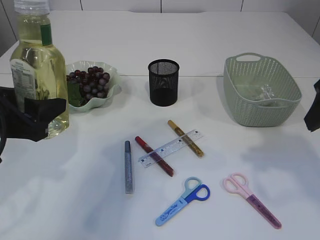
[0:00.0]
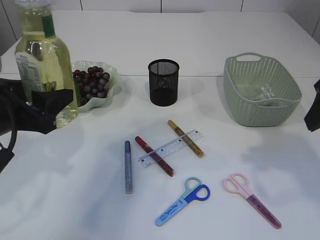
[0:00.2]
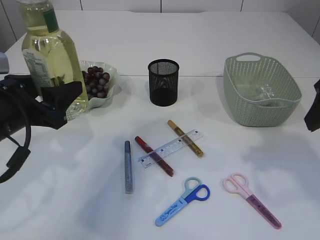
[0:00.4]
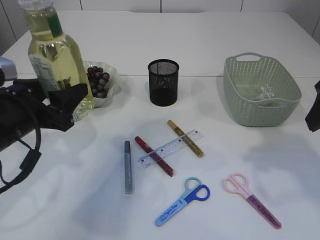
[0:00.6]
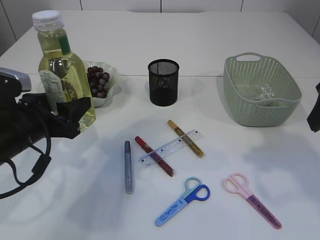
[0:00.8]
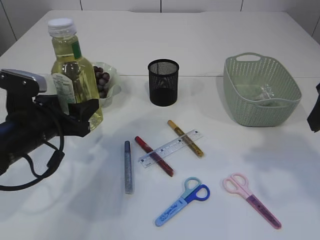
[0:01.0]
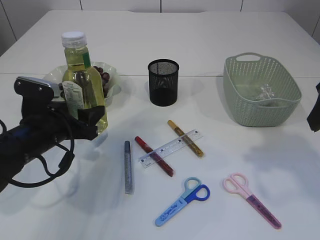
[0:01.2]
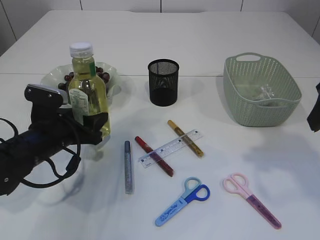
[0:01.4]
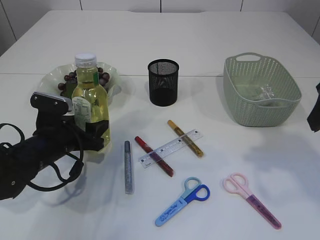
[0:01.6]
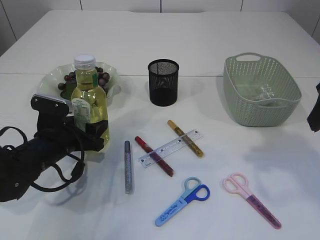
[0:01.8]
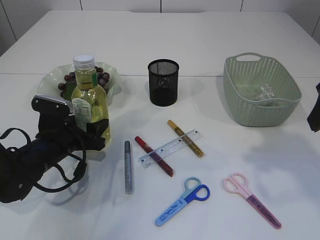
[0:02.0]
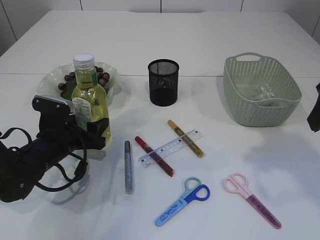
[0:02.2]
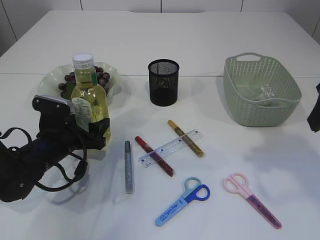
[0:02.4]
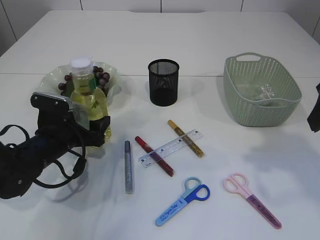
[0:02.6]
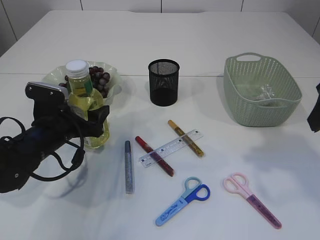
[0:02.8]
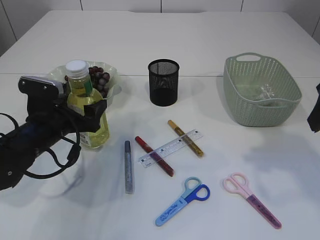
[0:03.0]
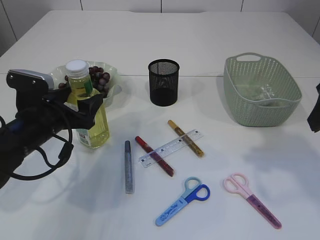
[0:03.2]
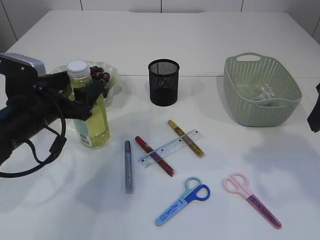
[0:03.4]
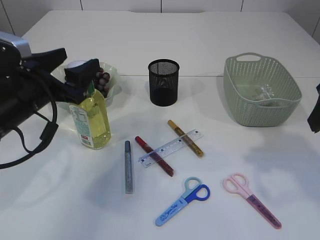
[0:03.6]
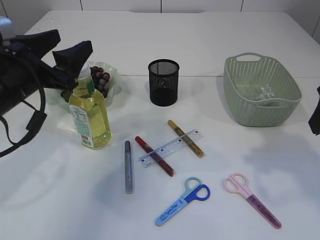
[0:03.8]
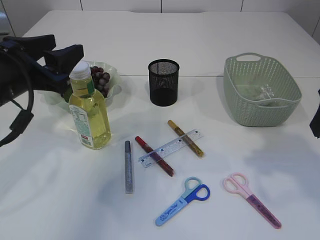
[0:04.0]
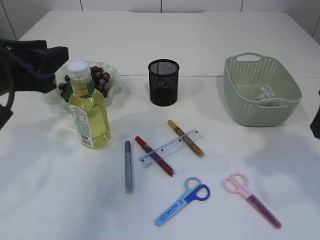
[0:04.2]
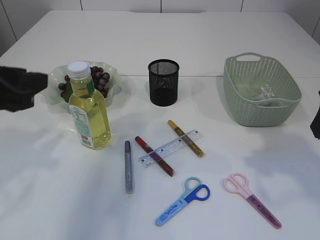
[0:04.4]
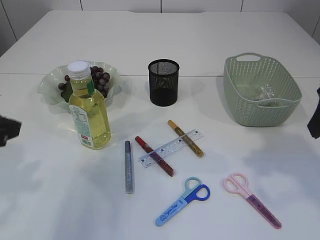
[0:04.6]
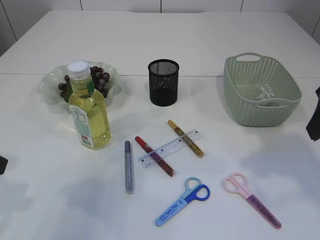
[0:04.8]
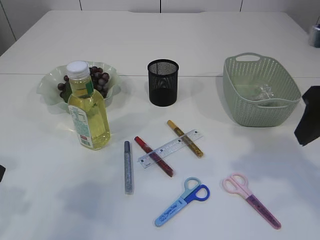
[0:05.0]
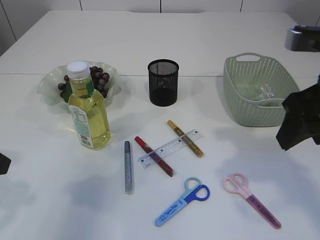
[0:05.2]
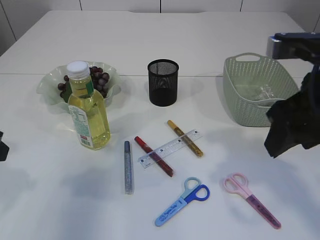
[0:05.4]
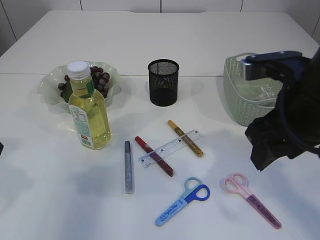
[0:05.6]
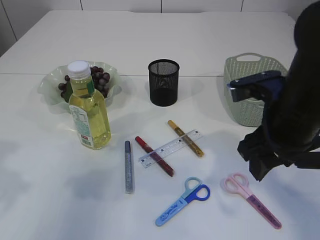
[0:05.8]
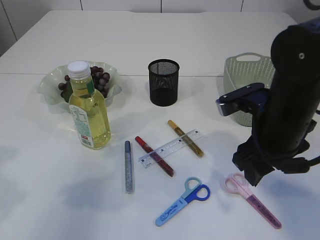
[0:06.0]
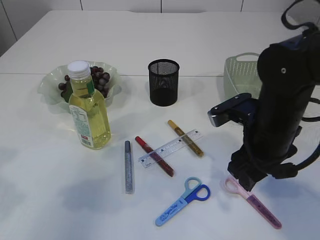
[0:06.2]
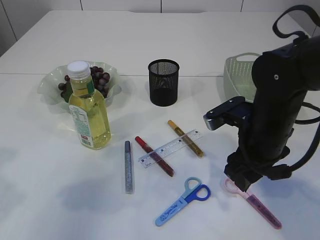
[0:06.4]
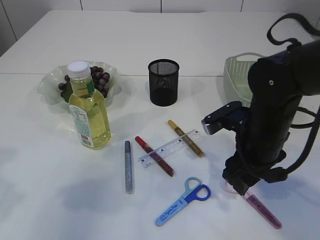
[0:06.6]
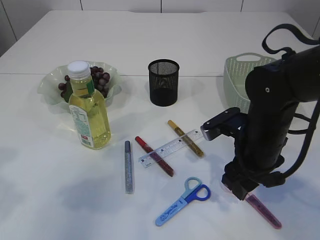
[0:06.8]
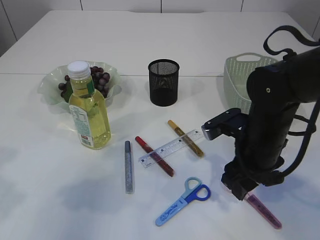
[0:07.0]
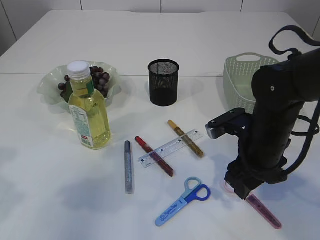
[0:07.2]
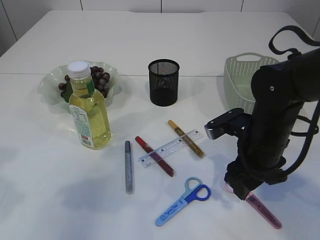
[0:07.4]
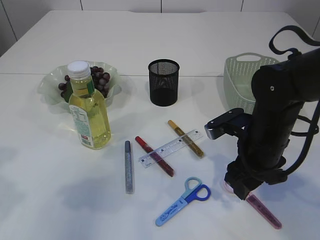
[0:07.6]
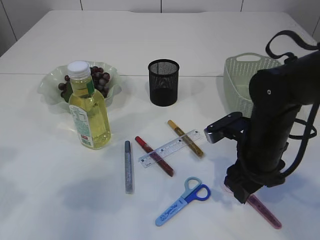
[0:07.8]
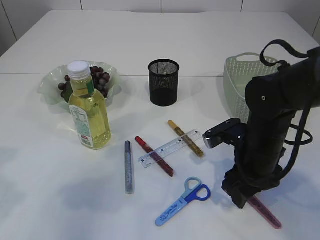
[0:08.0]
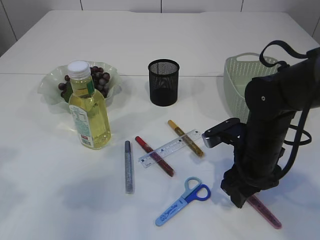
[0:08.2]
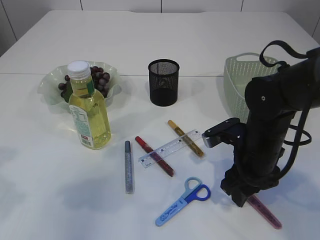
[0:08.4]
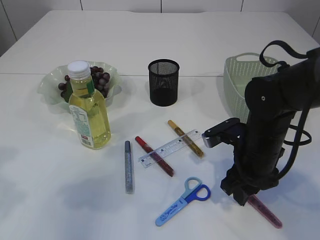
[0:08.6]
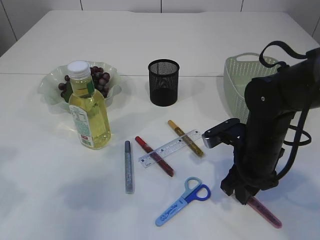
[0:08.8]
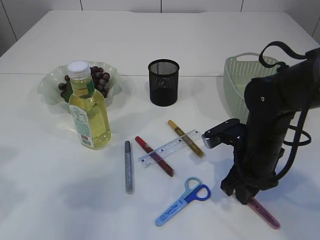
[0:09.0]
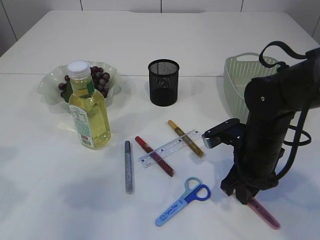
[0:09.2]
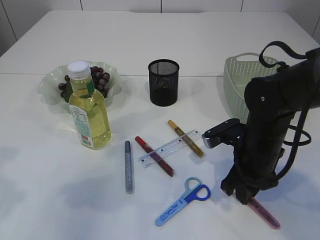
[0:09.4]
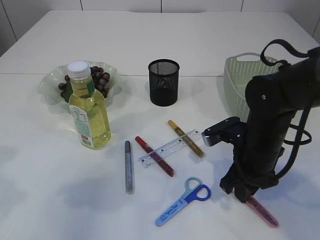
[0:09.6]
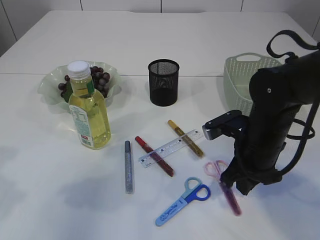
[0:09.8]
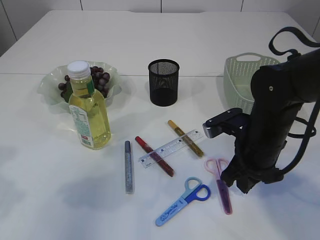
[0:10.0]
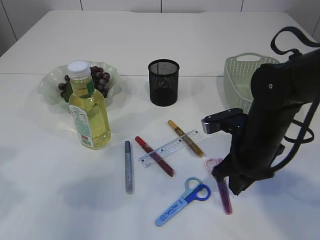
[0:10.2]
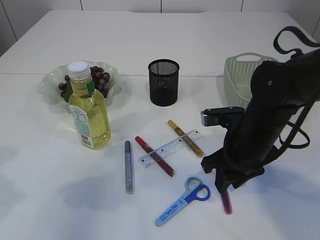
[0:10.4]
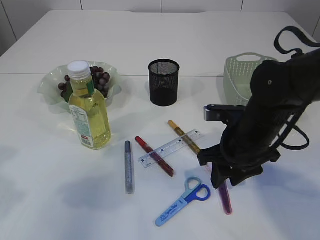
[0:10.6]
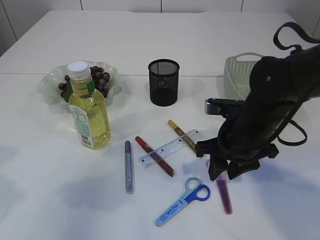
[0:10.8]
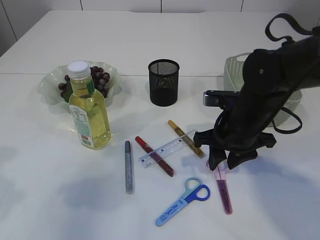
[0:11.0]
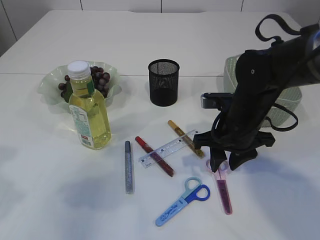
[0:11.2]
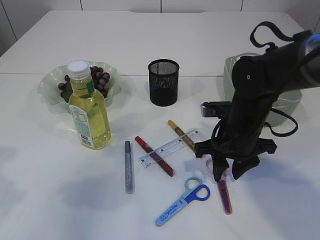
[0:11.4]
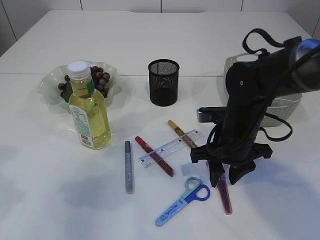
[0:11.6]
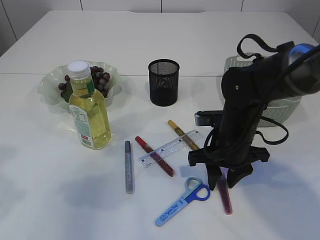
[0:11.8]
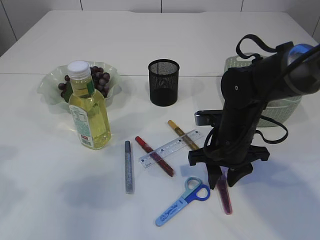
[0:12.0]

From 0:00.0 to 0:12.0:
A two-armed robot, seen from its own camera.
Step, from 0:00.0 to 0:04.4: Place the bottle.
From 0:00.0 to 0:01.6: The left gripper is displaced downward and forward by roughly 15 cm.
From 0:01.6 to 0:03.0: There are only small adjustments of the grippers.
From 0:03.0 to 0:04.4: The left gripper moves upward and backward, about 20 cm, and closes.
From 0:04.4 to 0:06.0: The left gripper moves roughly 5 cm; the right gripper moves to the left and downward, some 15 cm.
From 0:06.0 to 0:07.6: The right gripper travels downward by approximately 5 cm.
From 0:07.6 to 0:09.0: The right gripper closes.
From 0:09.0 to 0:10.4: There are only small adjustments of the grippers.
From 0:10.4 to 0:12.0: The grippers make only small movements.

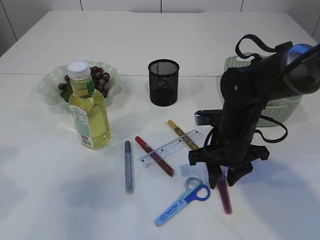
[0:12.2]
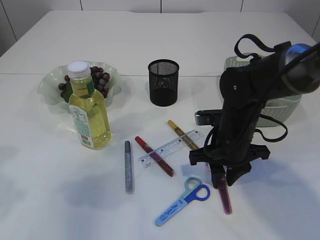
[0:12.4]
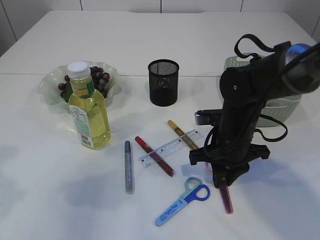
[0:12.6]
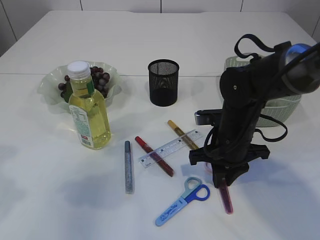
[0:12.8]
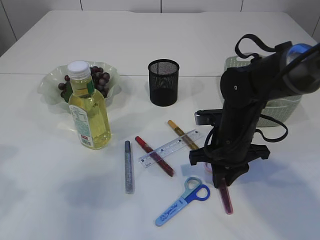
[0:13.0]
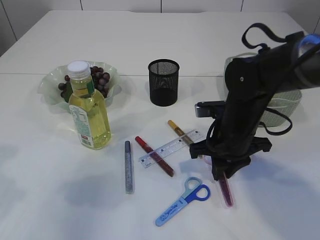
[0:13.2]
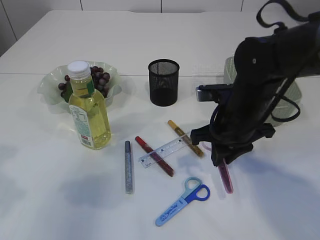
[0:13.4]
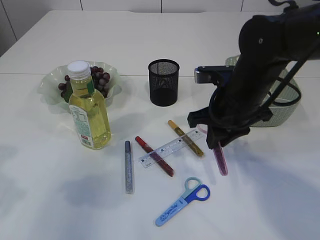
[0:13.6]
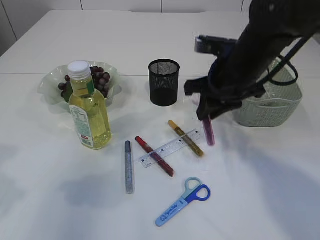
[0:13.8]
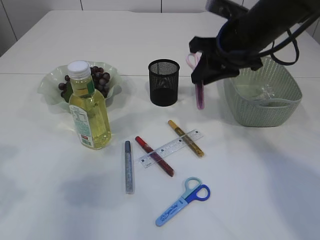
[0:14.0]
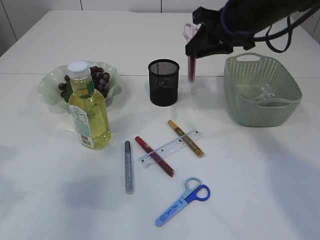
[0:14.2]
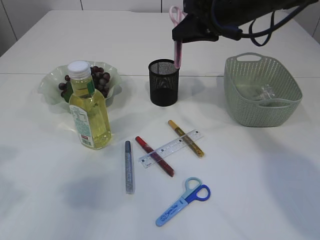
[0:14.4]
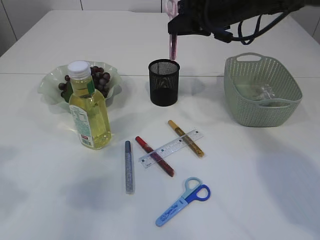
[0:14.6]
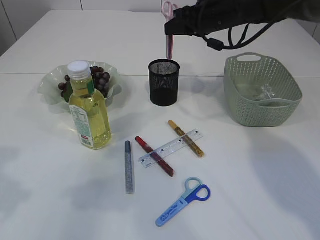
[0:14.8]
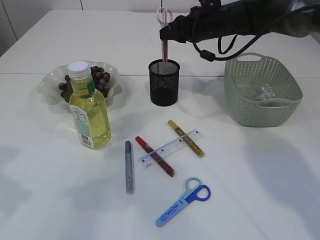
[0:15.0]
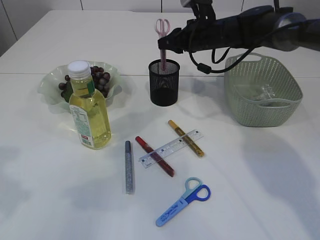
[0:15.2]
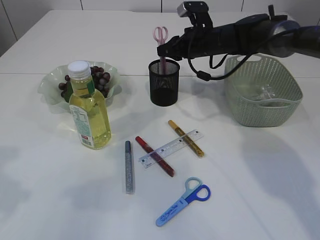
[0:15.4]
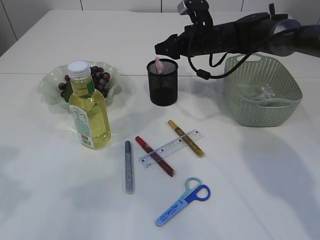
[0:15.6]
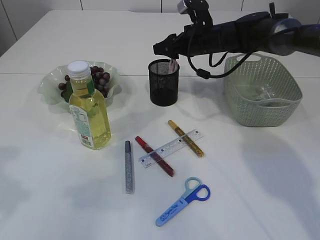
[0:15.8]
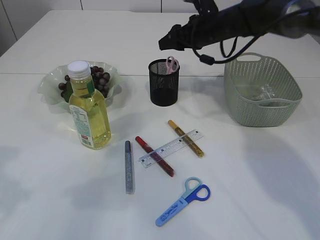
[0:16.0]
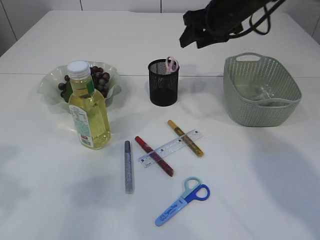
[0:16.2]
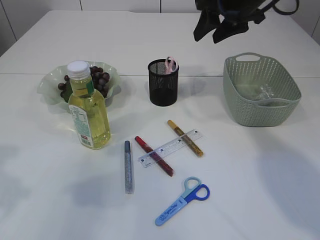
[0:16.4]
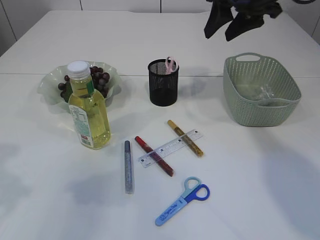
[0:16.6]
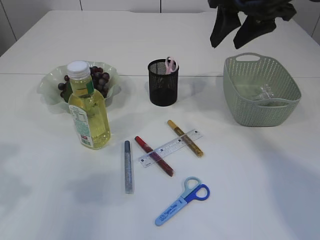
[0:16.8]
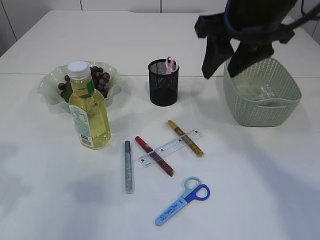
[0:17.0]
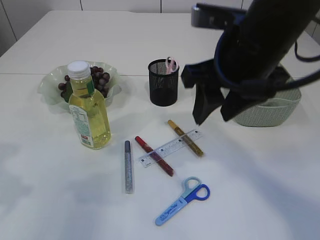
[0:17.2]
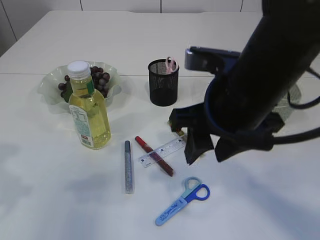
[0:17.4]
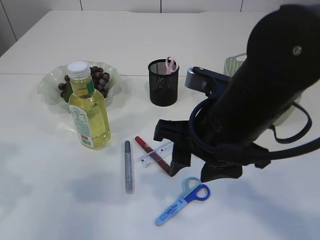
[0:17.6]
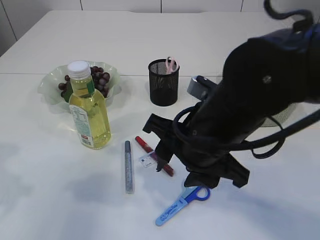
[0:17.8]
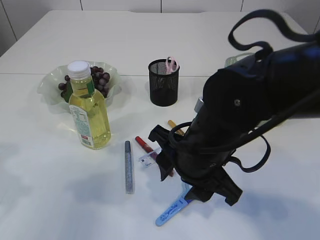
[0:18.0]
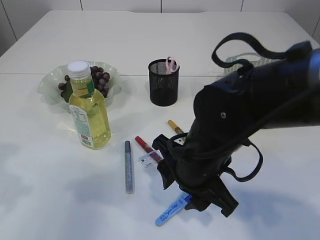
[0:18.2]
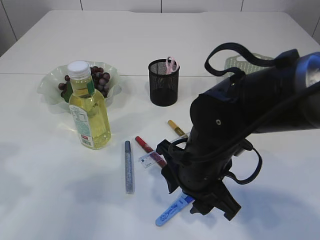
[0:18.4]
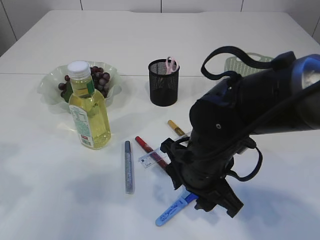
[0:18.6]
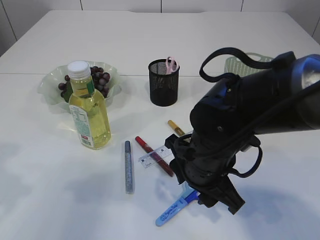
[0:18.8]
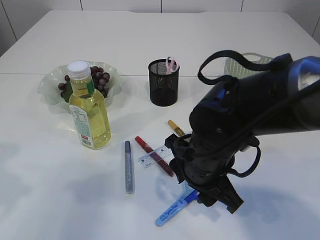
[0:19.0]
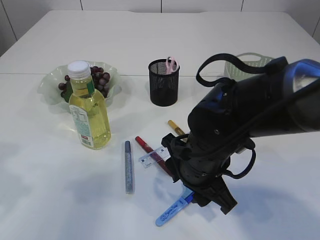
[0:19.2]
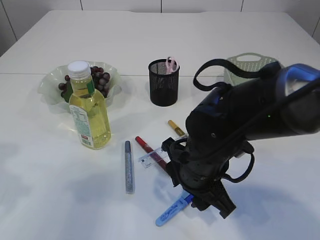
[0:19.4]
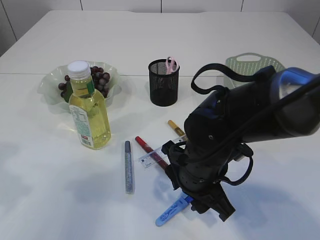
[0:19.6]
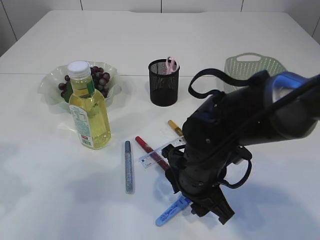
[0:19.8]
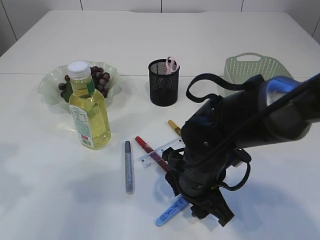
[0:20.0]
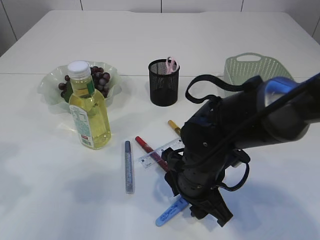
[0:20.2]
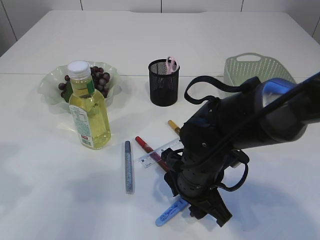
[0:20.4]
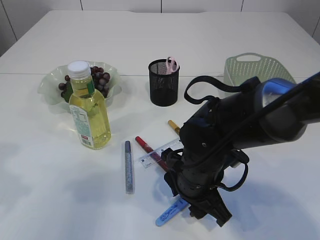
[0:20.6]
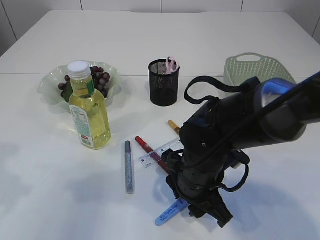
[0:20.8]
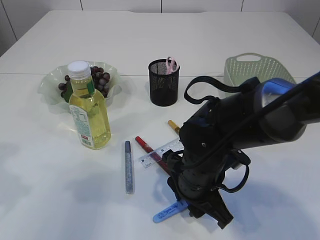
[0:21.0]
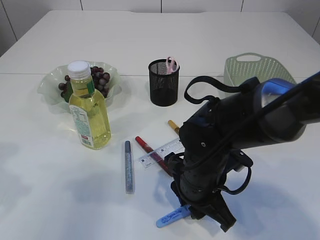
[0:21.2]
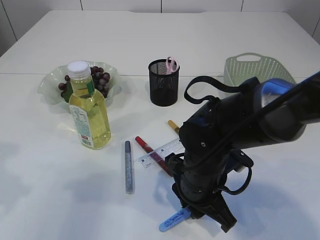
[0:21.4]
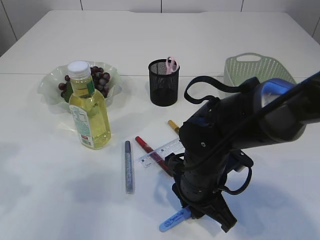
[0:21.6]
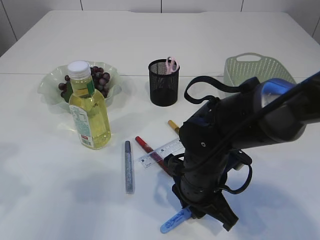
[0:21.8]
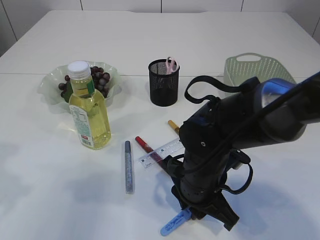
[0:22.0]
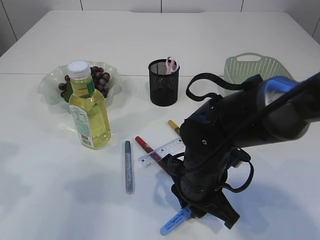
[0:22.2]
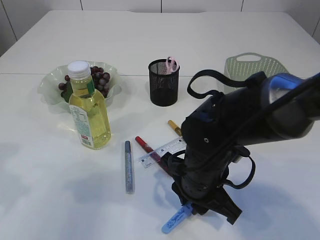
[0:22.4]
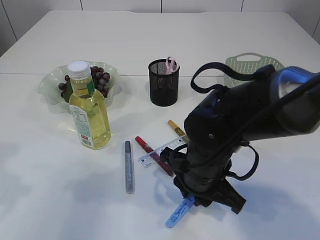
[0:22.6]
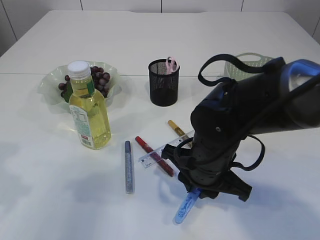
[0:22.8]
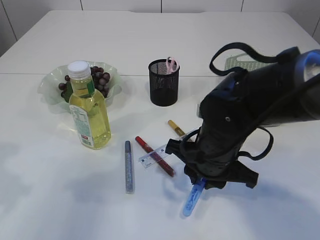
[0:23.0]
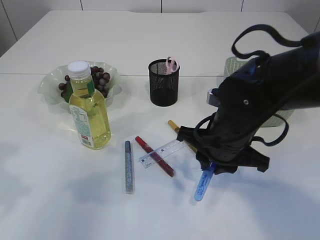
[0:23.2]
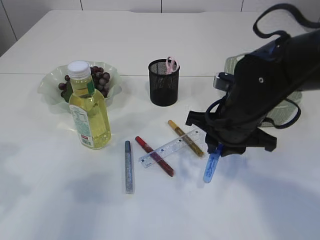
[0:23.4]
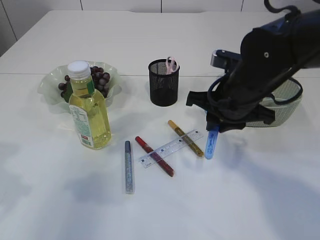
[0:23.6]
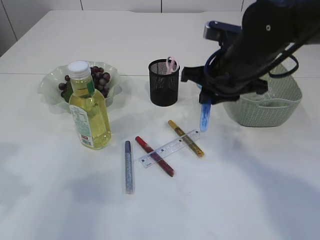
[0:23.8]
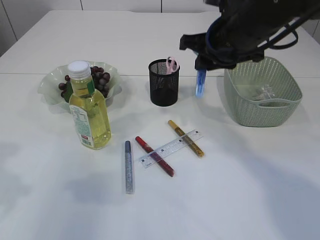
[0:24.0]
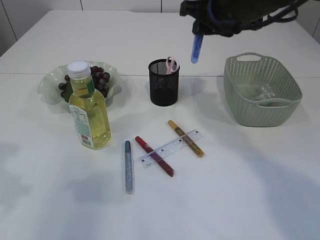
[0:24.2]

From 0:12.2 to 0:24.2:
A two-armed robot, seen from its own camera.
Step, from 0:13.6 to 0:16.2: Place the pink scissors into the pen holder.
Step, from 0:16.4 to 0:23.0: pick up the blue scissors.
From 0:12.2 to 0:13.8: The right gripper shifts approximately 10 cm upward.
From 0:13.8 to 0:15.2: The right gripper moves forward, roughly 20 cm.
From 0:15.2 to 0:16.6: The right gripper goes about 15 cm upward and backward, and opens up.
From 0:16.6 to 0:18.2: The right gripper moves backward, downward and to the left, about 30 cm.
From 0:18.2 to 0:19.8: The grippers stay close to where they were, moving slightly.
From 0:19.8 to 0:21.2: Both grippers stay about where they are.
From 0:21.2 to 0:22.6: The grippers move only a little.
From 0:22.6 to 0:24.2: The right gripper is displaced upward, forward and to the right by approximately 25 cm.
